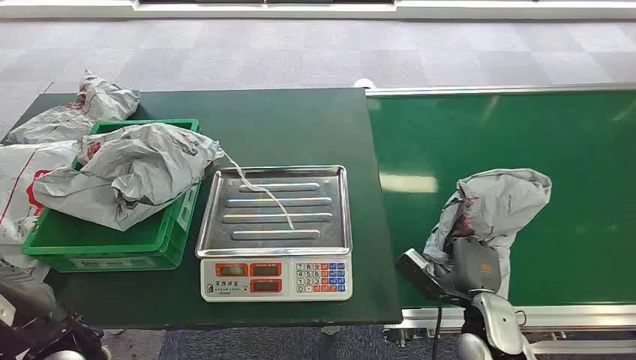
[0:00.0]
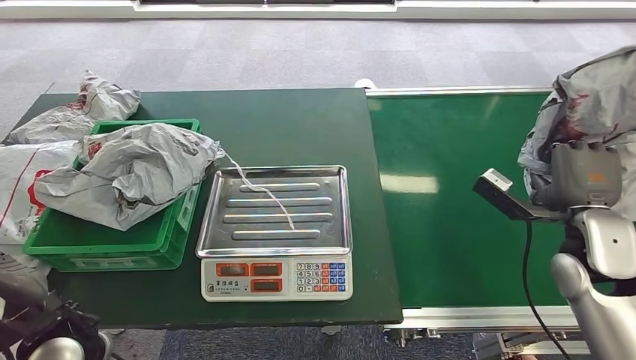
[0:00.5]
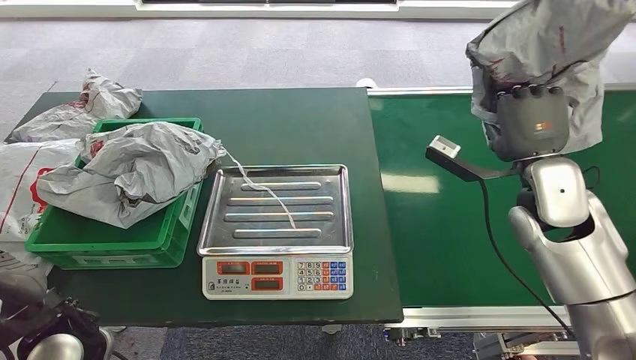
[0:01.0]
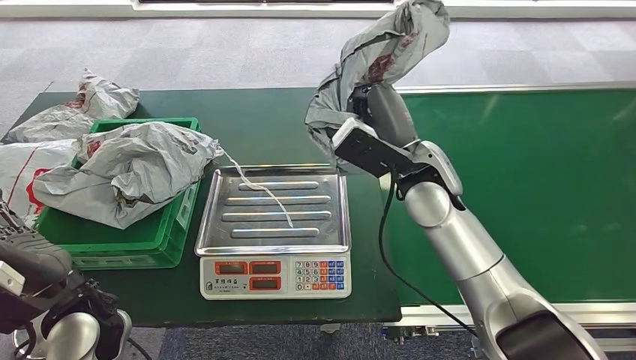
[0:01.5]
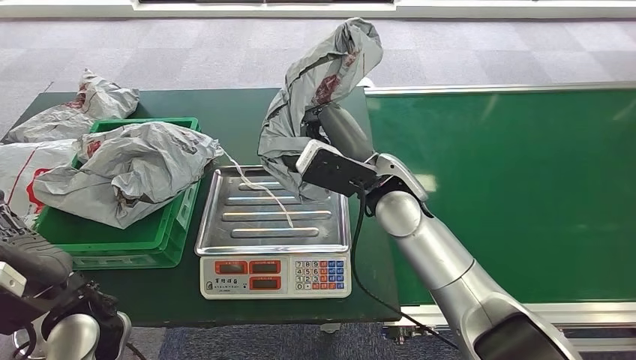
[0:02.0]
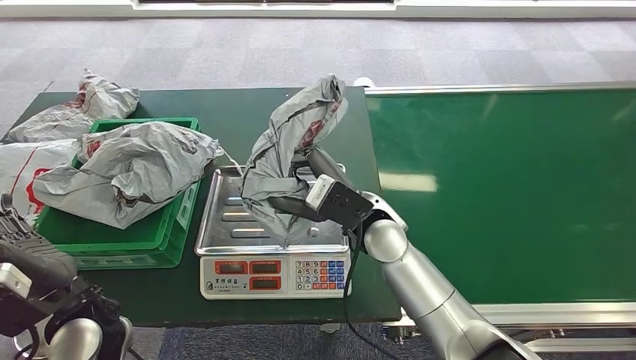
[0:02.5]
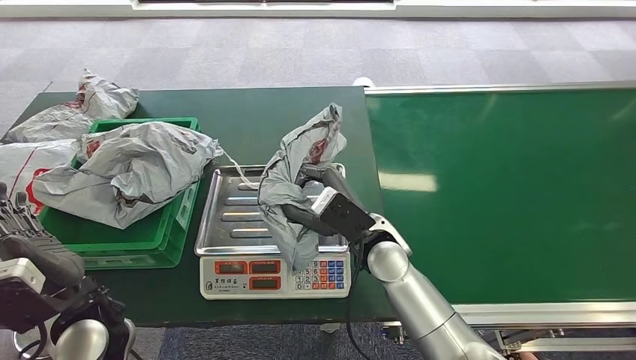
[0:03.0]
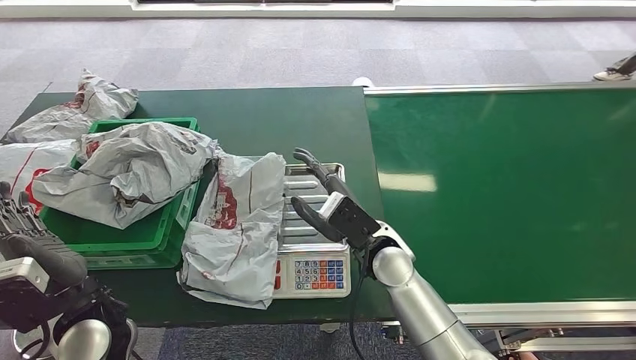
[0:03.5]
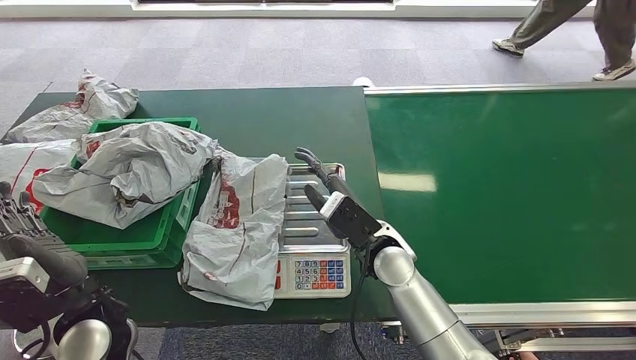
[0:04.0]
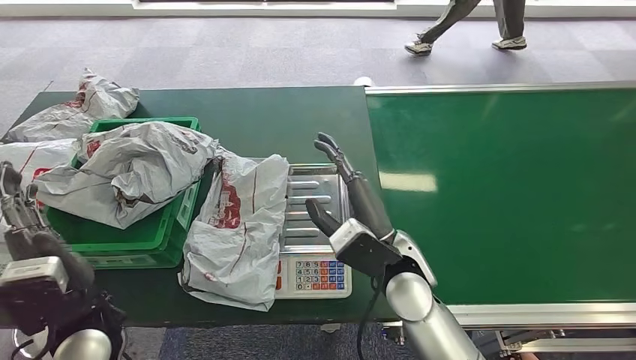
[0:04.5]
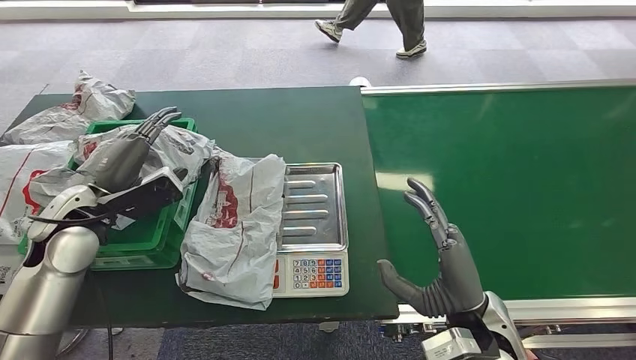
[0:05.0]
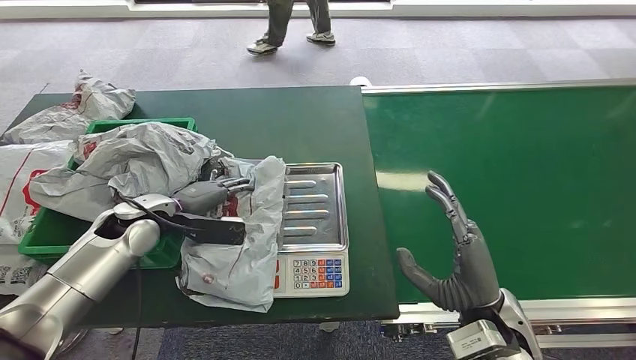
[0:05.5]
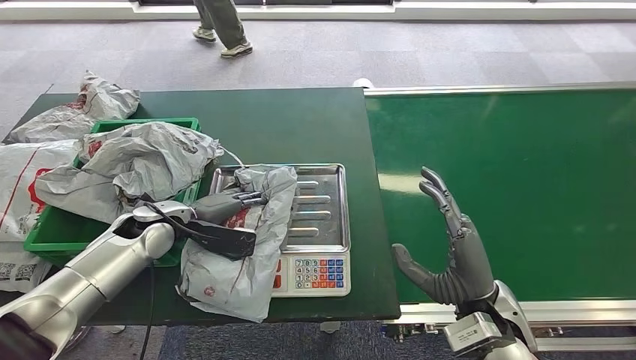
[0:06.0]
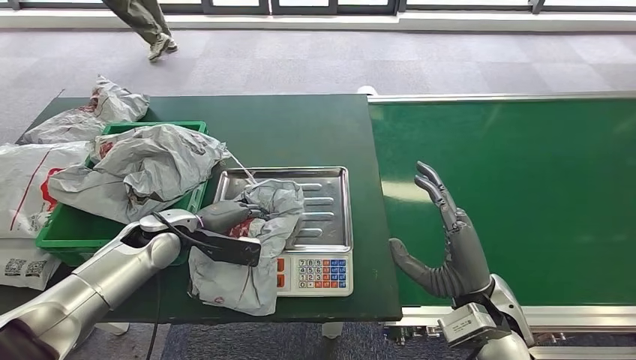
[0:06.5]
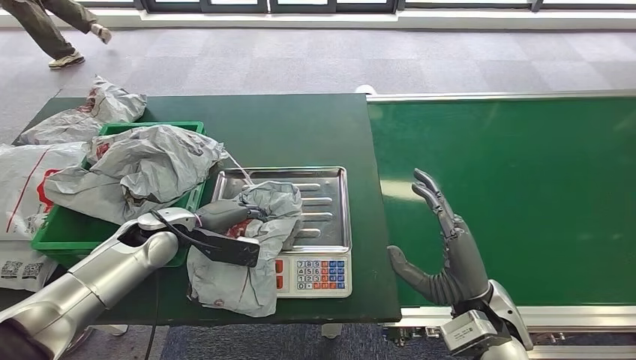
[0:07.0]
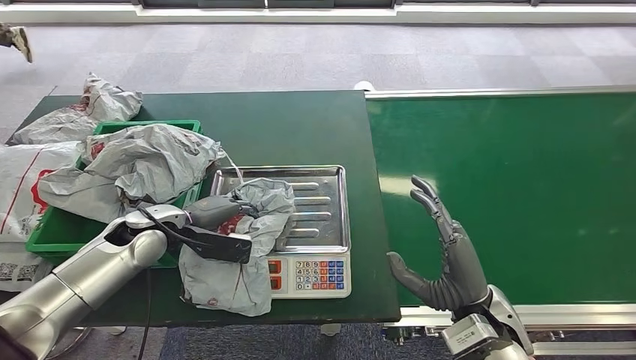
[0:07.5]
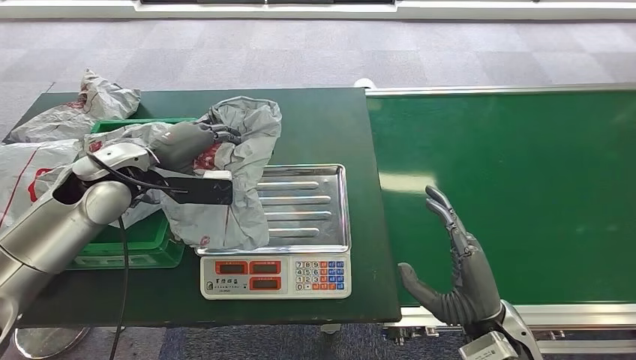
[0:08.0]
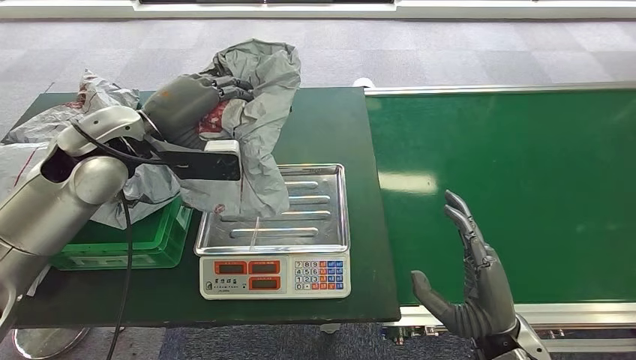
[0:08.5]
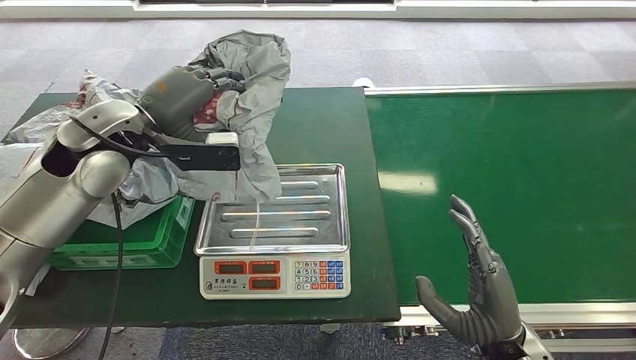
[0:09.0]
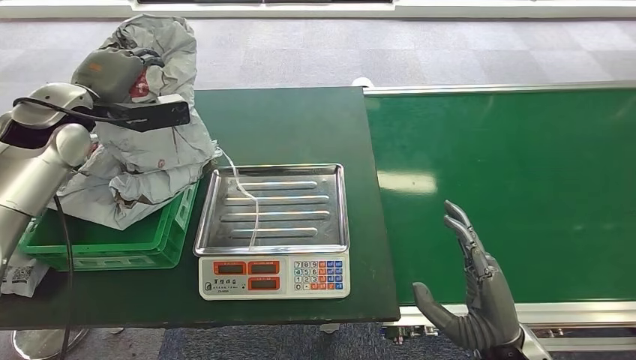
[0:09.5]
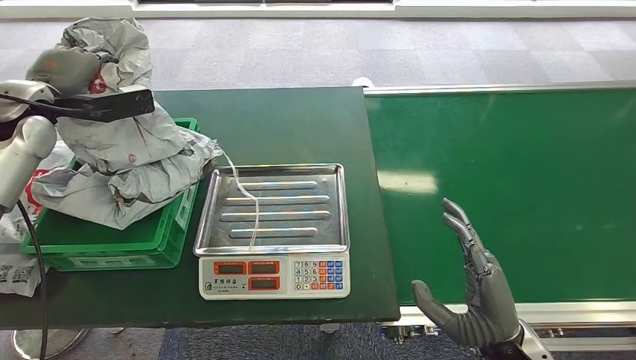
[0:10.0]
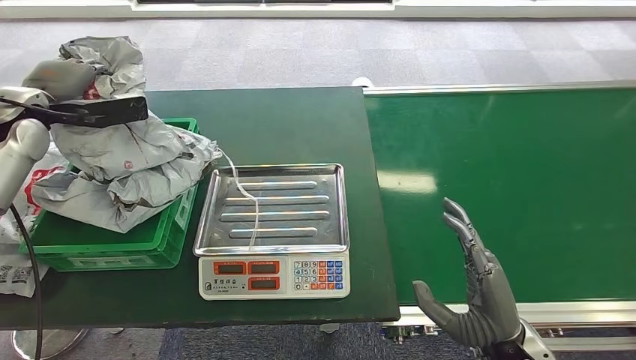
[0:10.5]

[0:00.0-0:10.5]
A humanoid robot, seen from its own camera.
Step, 0:00.0 to 0:00.5: Pick up the package from the conveyor belt.
Step, 0:01.0 to 0:04.5: Place the package onto the inbound machine.
Step, 0:05.0 to 0:09.0: Pick up the package from the inbound machine.
Step, 0:09.5 to 0:10.5: Place the package into the parcel locker.
